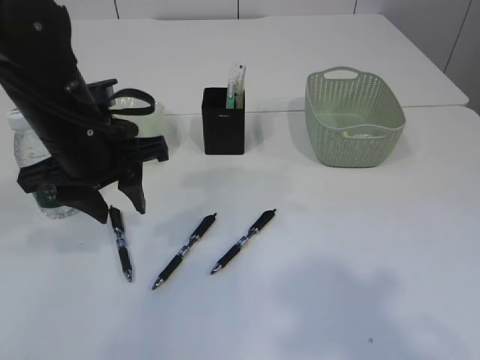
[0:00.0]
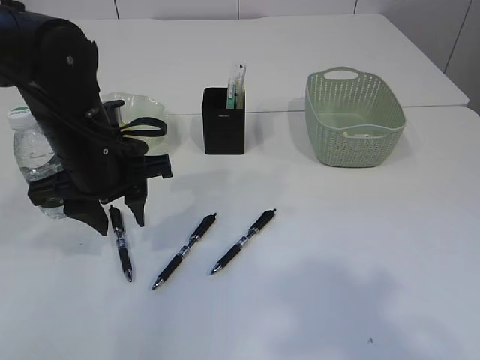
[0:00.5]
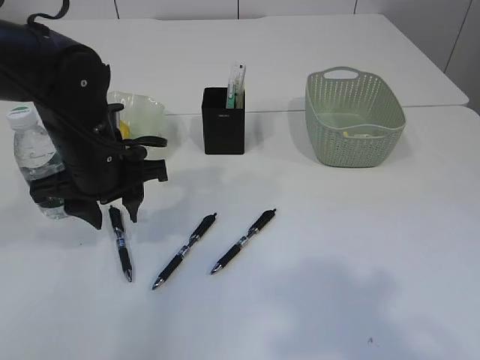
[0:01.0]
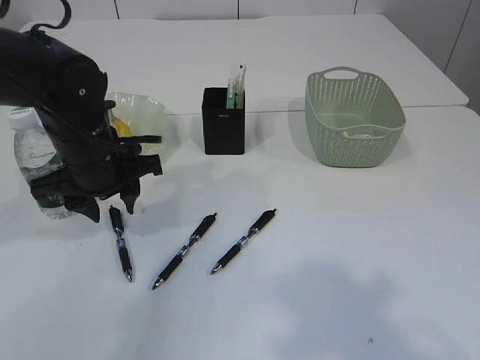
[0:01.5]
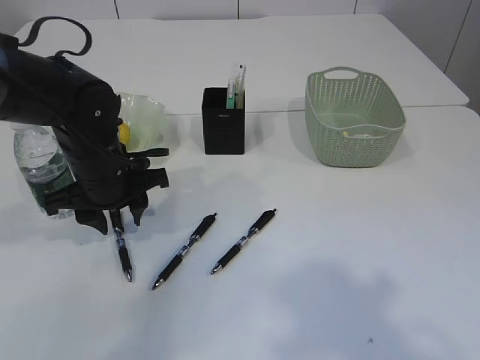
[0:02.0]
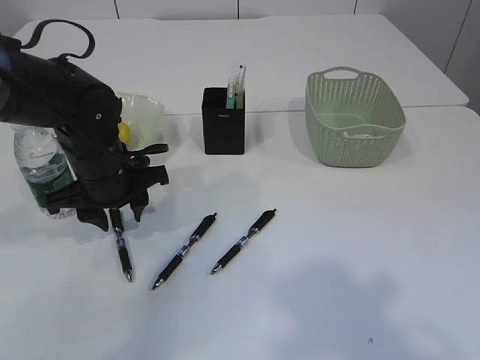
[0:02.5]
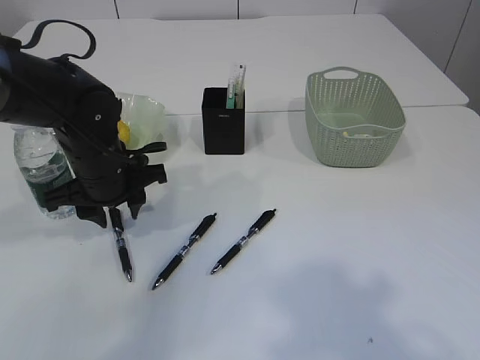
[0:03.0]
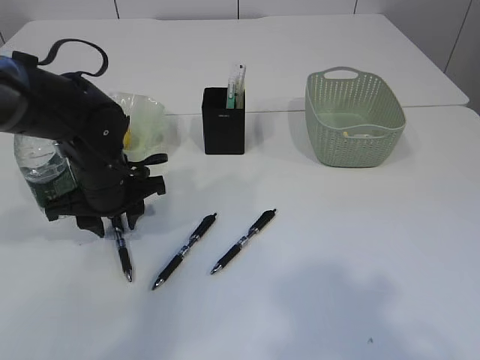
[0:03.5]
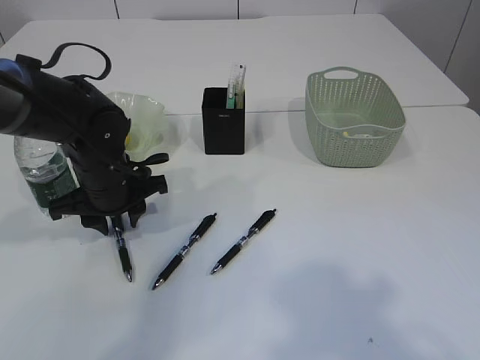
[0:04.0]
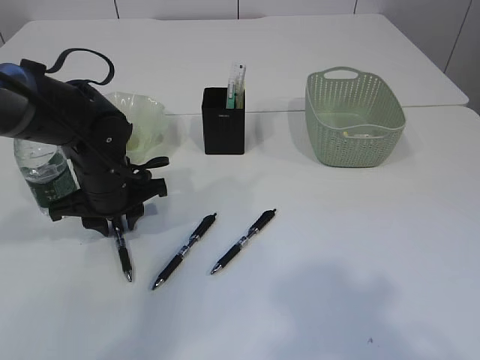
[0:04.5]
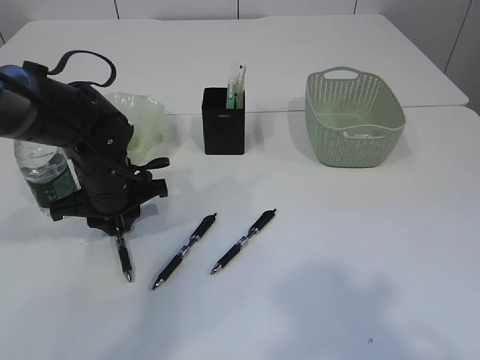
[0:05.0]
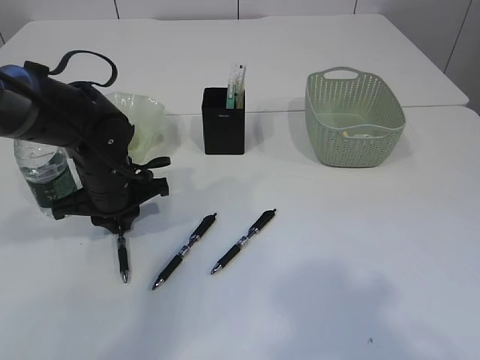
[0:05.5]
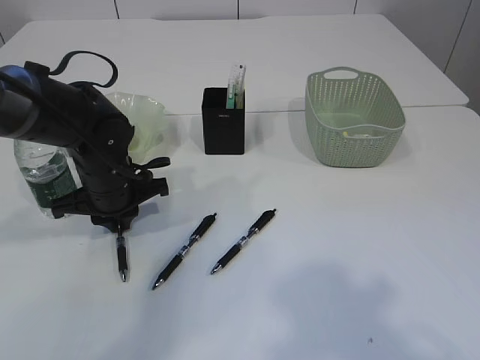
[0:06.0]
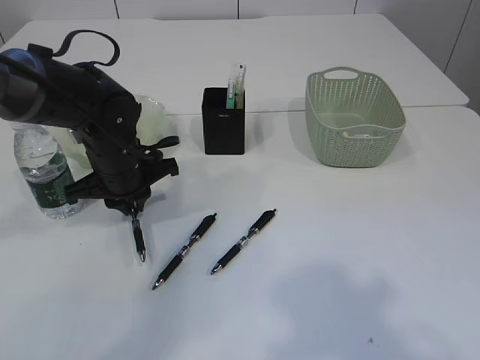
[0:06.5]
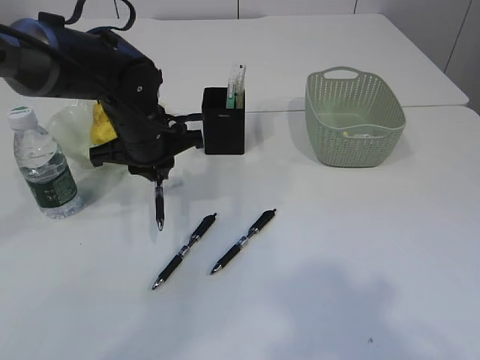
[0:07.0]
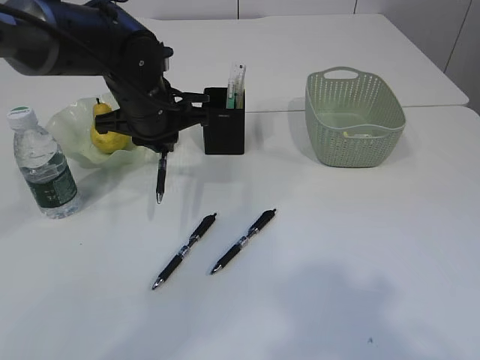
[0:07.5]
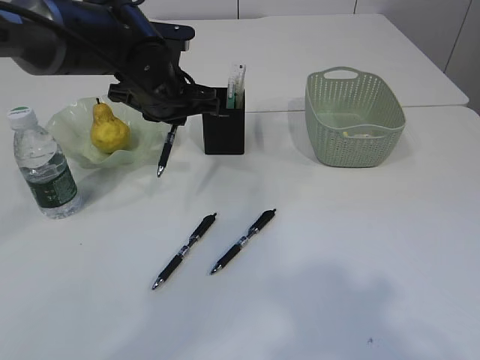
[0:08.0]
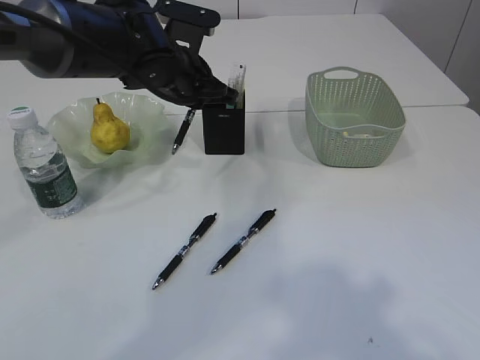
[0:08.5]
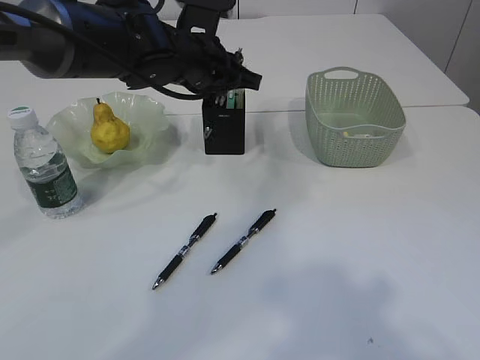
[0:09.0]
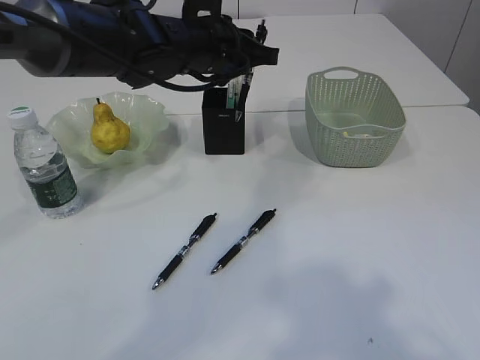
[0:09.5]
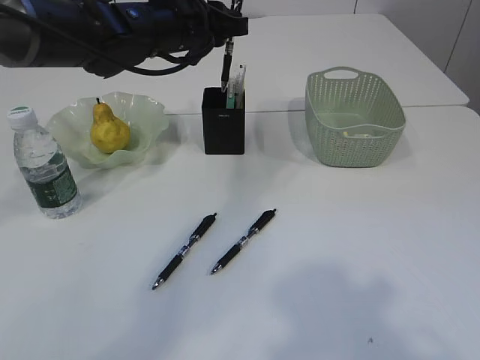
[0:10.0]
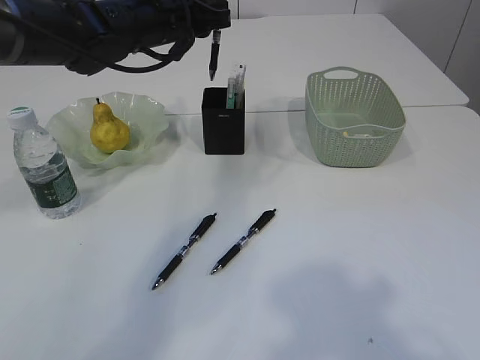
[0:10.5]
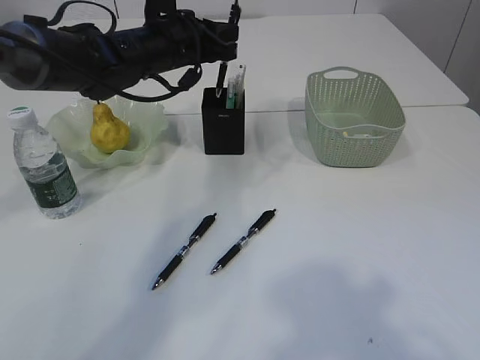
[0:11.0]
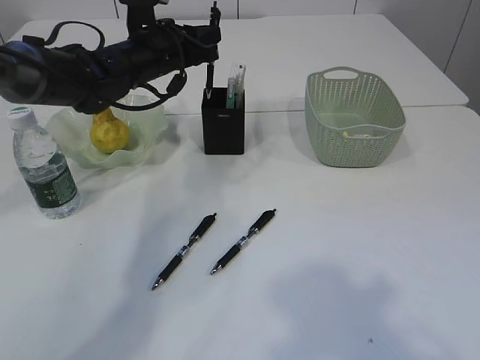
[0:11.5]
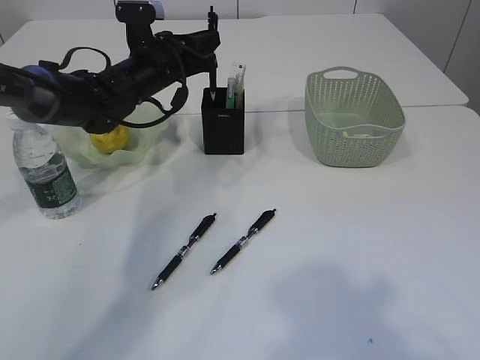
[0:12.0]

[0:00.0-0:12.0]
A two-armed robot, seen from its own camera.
Step, 0:00.0 to 0:07.0: Pick up the pen with left arm.
0:00.0 to 0:02.0: The left gripper shifts some 10 cm downward.
0:02.0 to 0:04.0: The grippers make only small movements.
0:04.0 to 0:06.0: The left gripper closes its fingers.
0:06.0 to 0:08.0: The left gripper travels upward, to the right and forward by approximately 15 cm.
0:08.0 to 0:10.0: The left gripper goes roughly 5 cm upward.
0:10.0 to 0:12.0: The left gripper travels downward by approximately 10 cm.

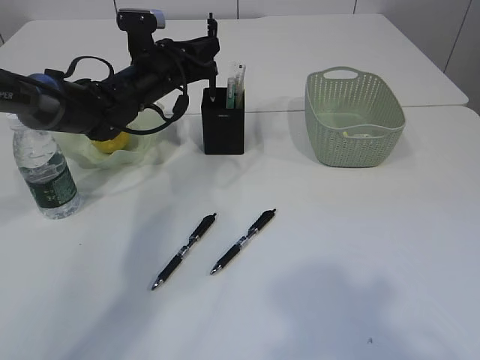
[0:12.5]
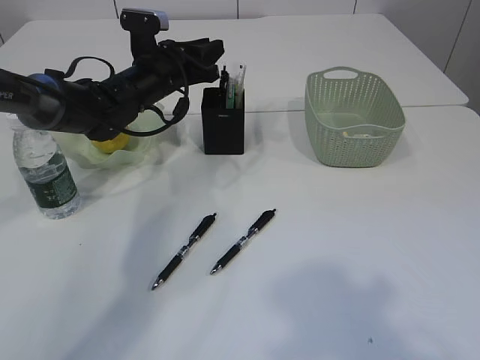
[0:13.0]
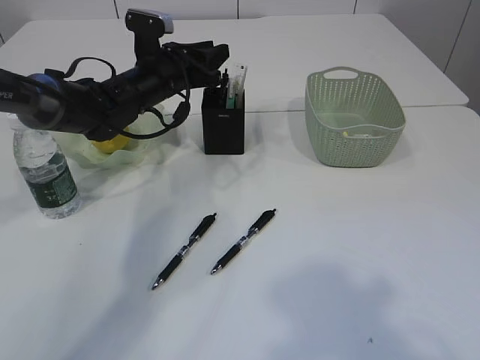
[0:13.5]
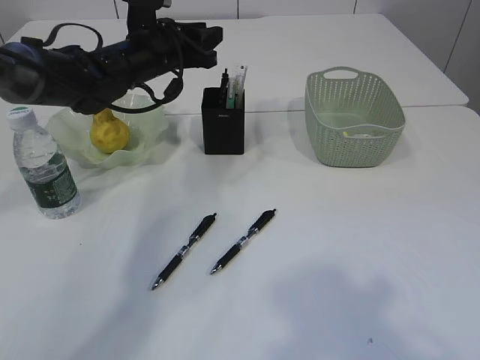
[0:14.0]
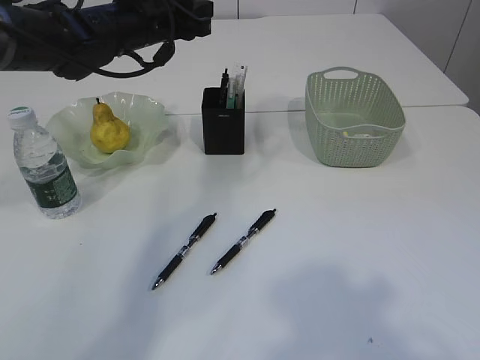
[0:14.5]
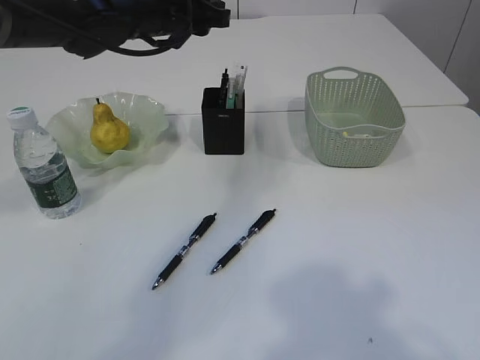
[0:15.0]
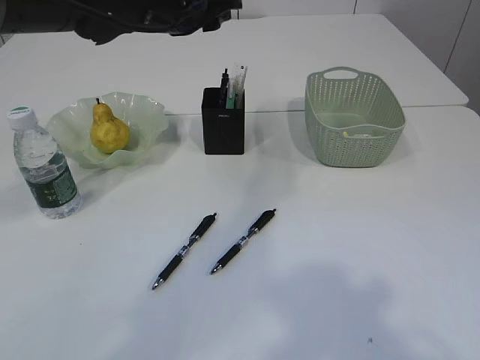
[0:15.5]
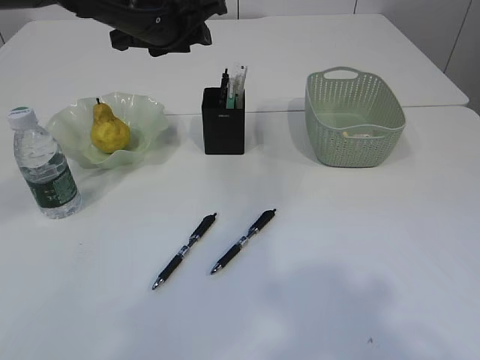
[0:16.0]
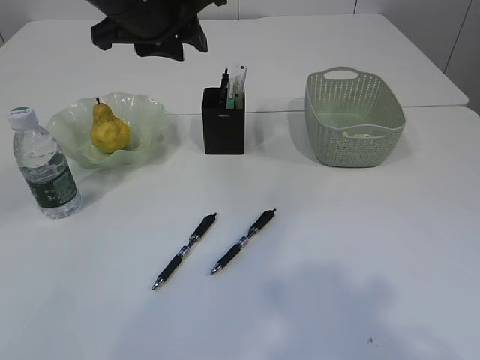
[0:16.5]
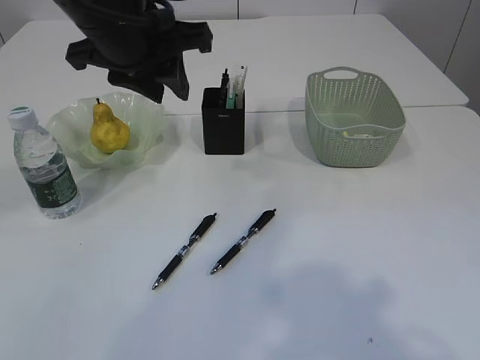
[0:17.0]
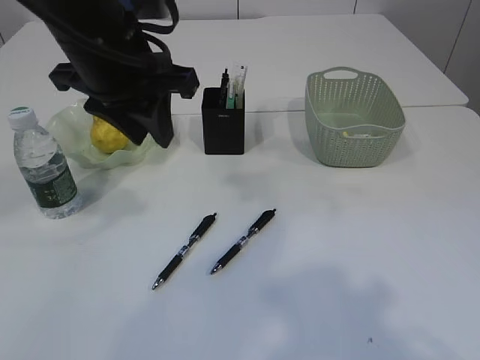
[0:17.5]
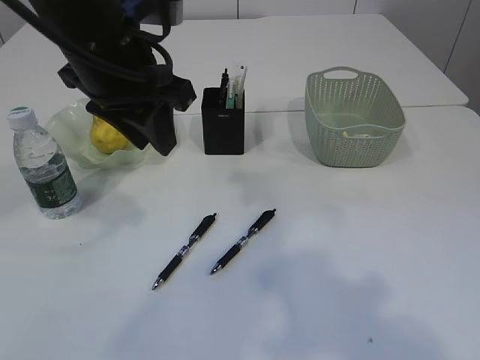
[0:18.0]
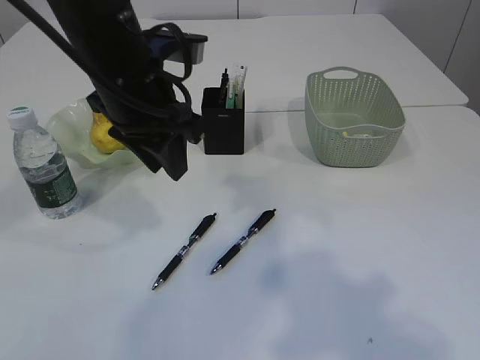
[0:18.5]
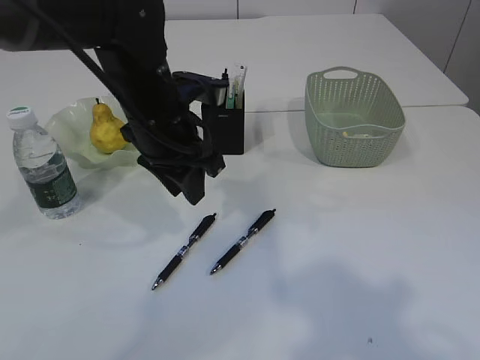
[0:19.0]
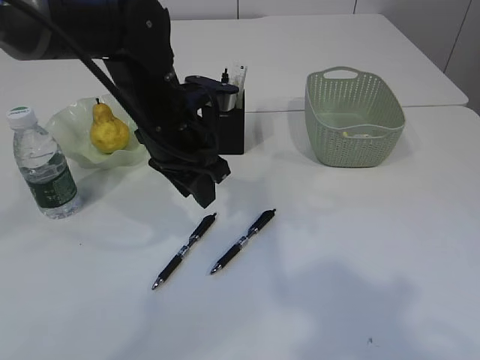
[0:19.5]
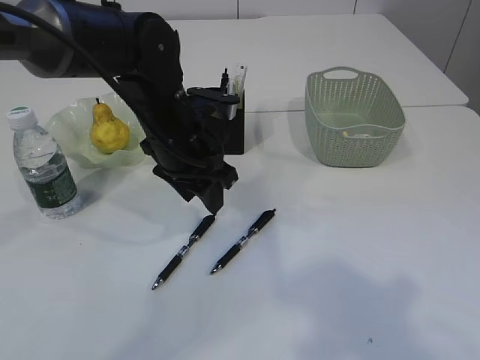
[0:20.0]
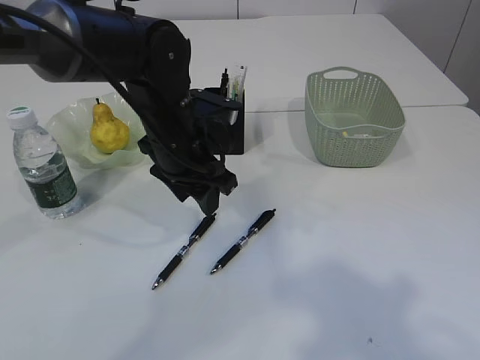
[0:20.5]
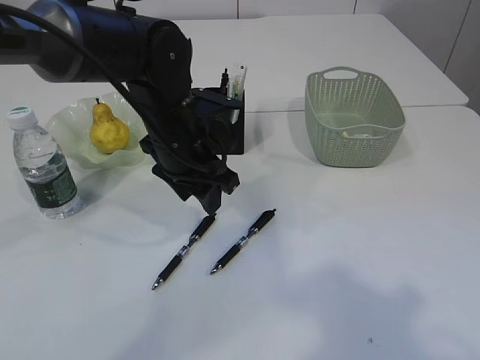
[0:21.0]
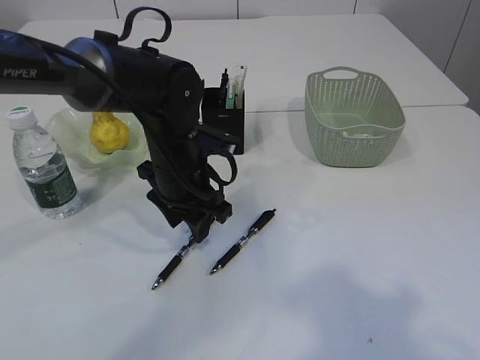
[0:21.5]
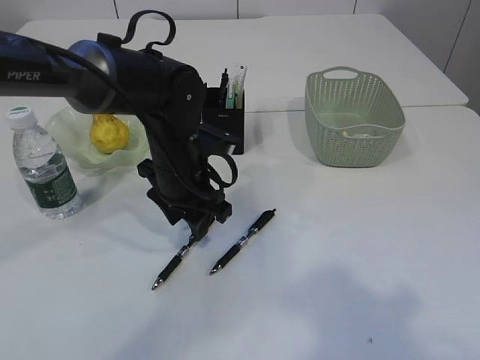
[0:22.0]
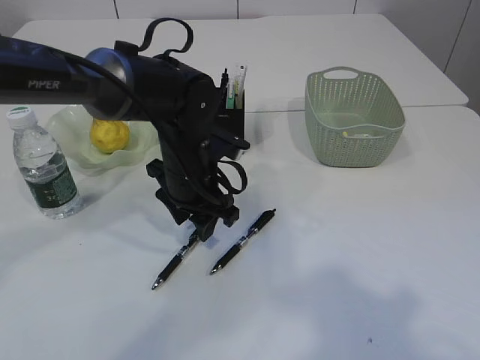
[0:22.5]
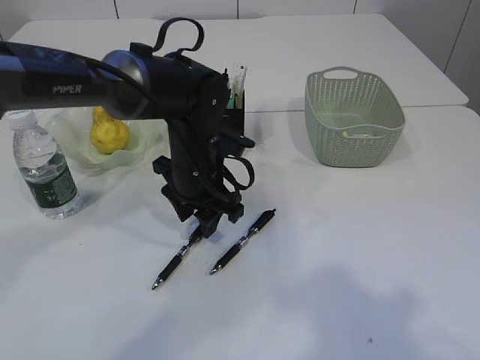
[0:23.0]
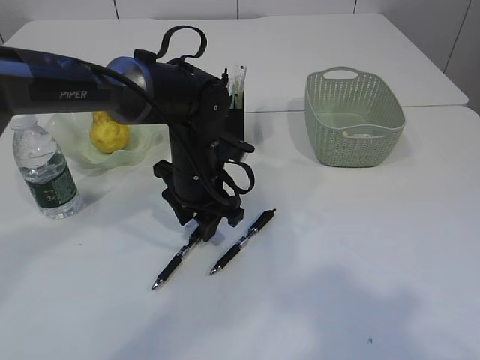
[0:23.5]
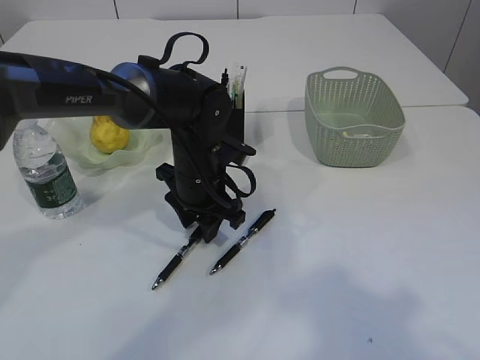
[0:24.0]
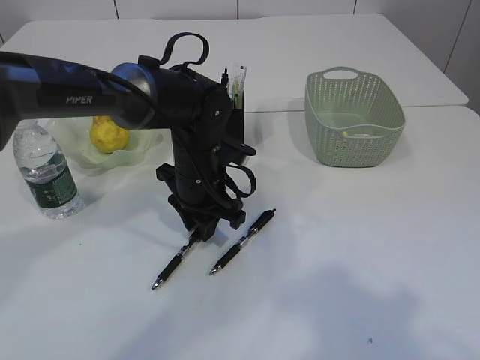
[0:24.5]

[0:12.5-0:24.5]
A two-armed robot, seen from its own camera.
Step, 0:12.5 to 0:14.5: Place the pen into the pen holder.
0:12.5 to 0:14.5: The left gripper shifts approximately 10 cm upward.
0:14.5 to 0:16.5: The left gripper goes roughly 15 cm backward and upward.
0:16.5 to 0:18.5: The left gripper moves downward, roughly 5 cm.
0:18.5 to 0:20.5: The left gripper travels downward by roughly 10 cm.
0:20.5 to 0:22.5: The left gripper travels downward by roughly 5 cm.
0:22.5 to 0:24.5: The grippers move only a little.

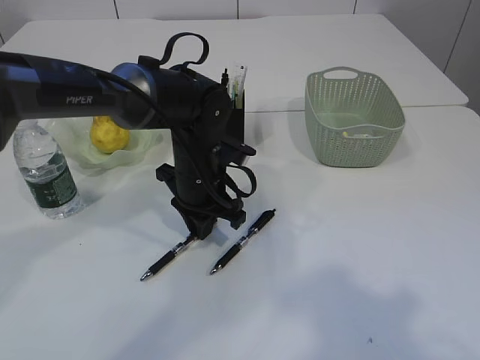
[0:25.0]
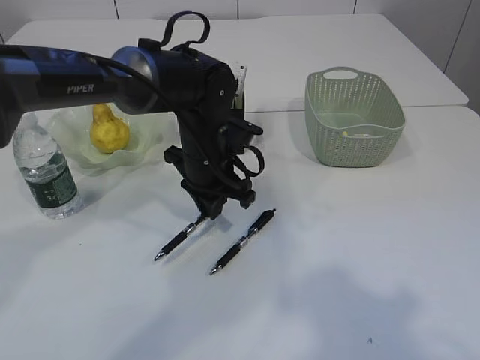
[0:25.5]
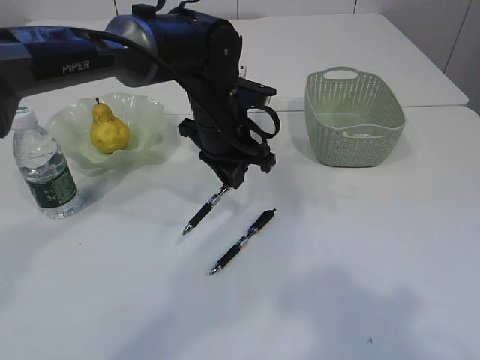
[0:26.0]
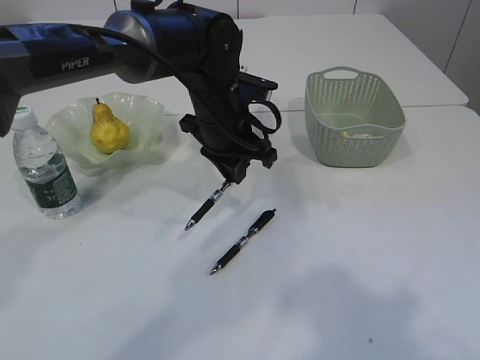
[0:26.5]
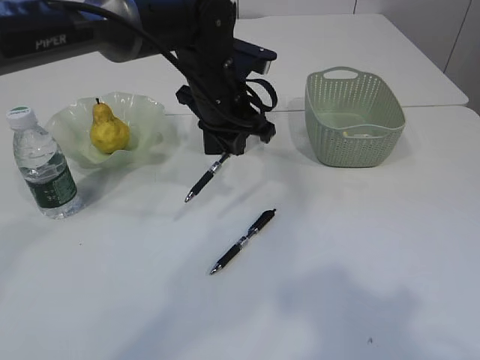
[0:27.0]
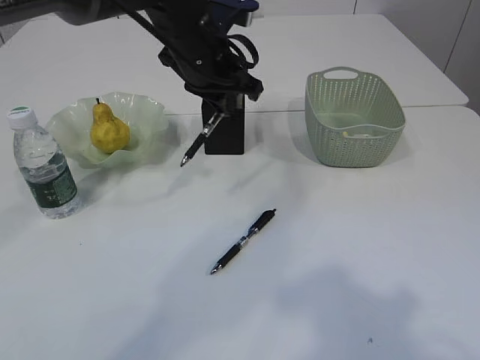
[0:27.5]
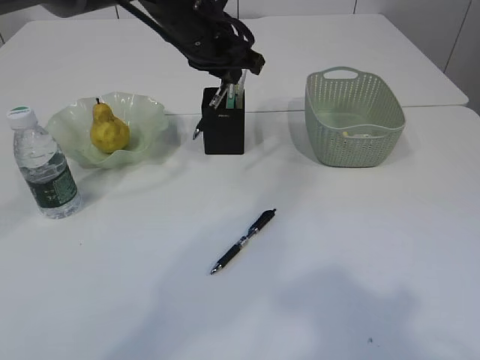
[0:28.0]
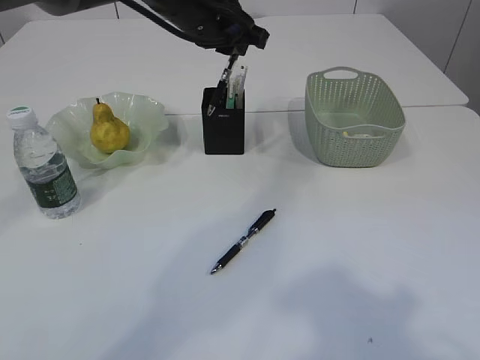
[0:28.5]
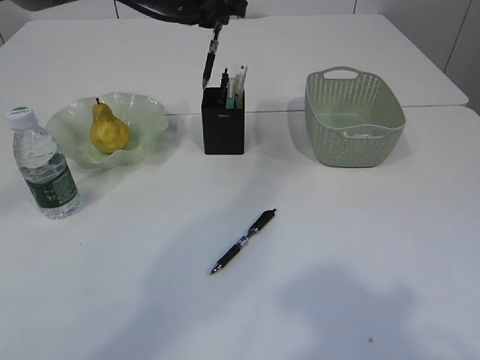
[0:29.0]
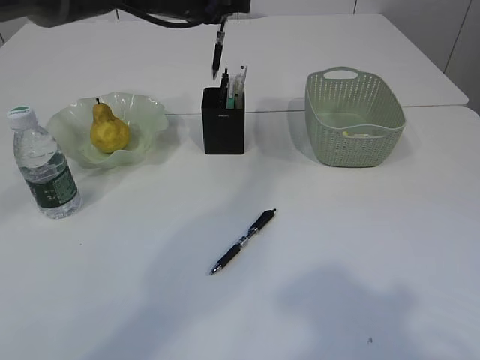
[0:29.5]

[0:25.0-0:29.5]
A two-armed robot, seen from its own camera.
0:25.0 to 0:27.0: The left gripper travels upward by approximately 10 cm.
0:27.0 to 0:29.5: The left gripper shifts roughly 10 cm forward and upward.
